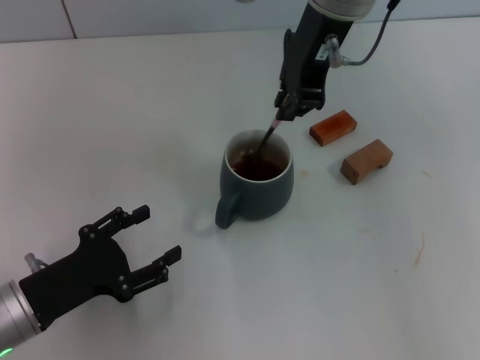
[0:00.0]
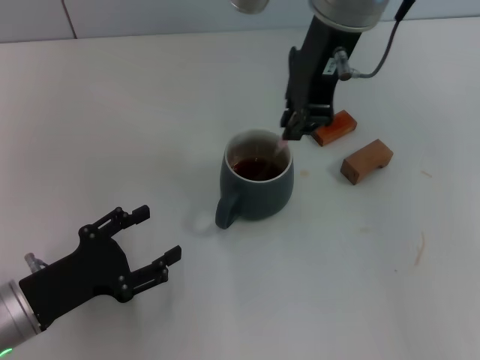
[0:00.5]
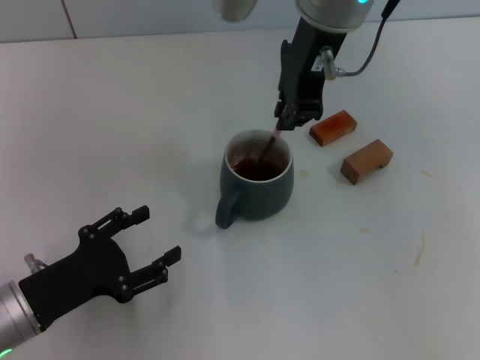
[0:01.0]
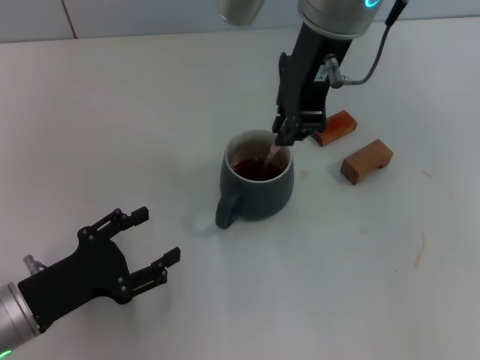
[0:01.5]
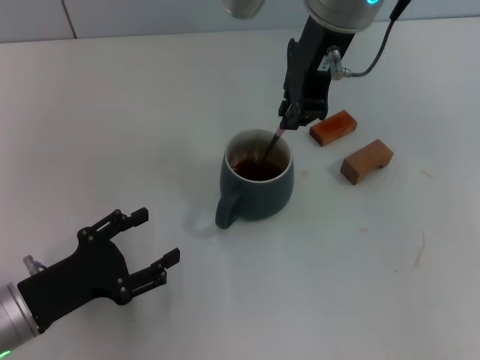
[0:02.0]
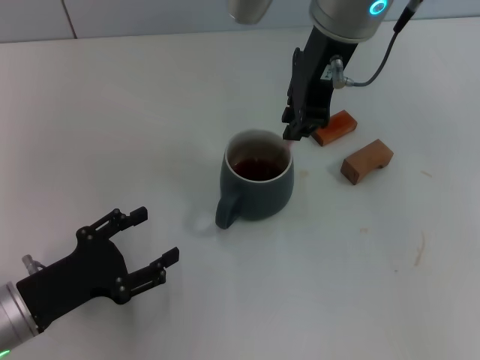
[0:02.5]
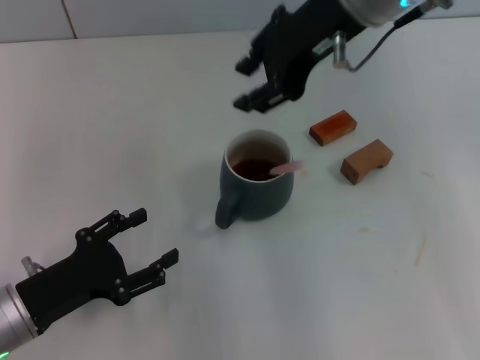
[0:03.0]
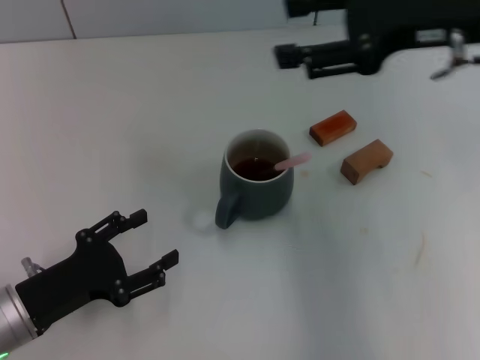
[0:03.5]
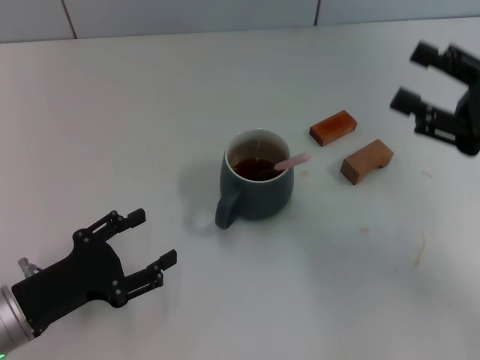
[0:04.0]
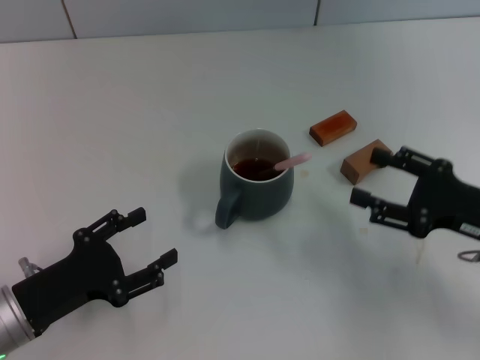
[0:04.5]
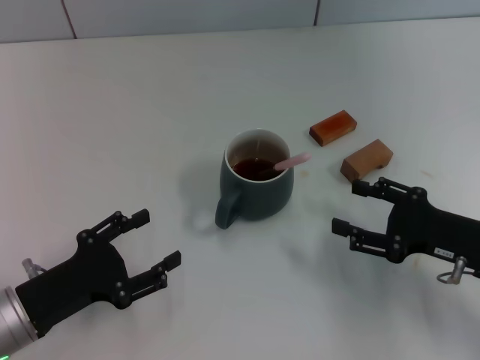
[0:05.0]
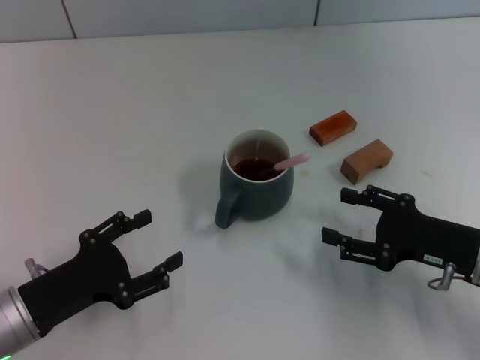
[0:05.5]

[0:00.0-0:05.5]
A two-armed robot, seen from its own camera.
Task of the whole recording: Move the grey cup to the center, lift the pink spoon, stir it three times in the cup, and put the spoon into the cup.
Step, 0:00.0 to 0:02.5: Stir the coffee in the cup with the right gripper.
0:00.0 to 0:02.0: The grippers stay close to where they were, moving slightly.
0:02.0 to 0:03.5: The right gripper goes approximately 15 cm to the right, and opens up.
0:03.5 to 0:05.5: The right gripper is displaced downward and backward by roughly 25 cm.
